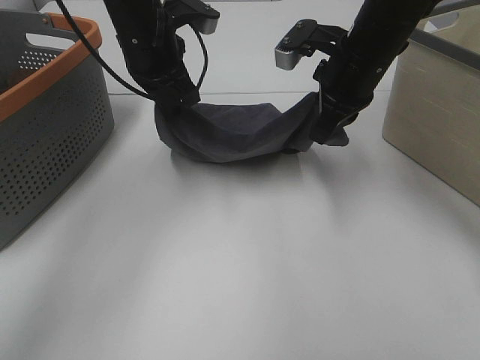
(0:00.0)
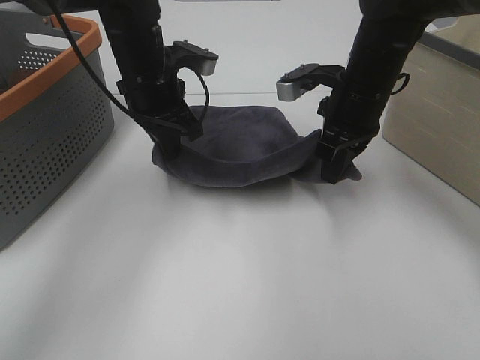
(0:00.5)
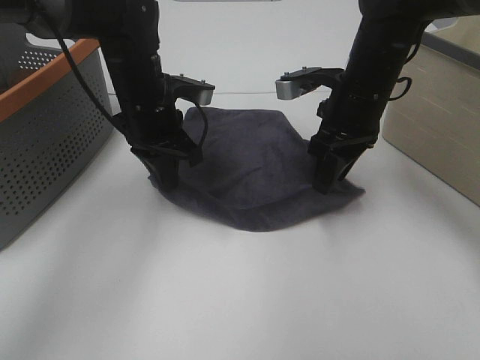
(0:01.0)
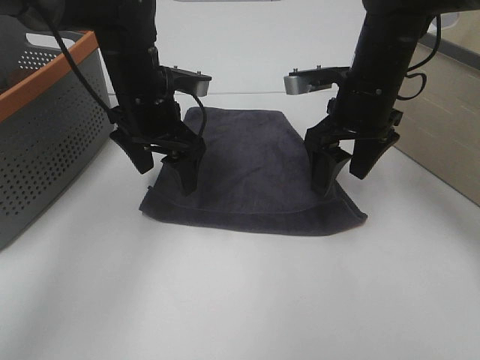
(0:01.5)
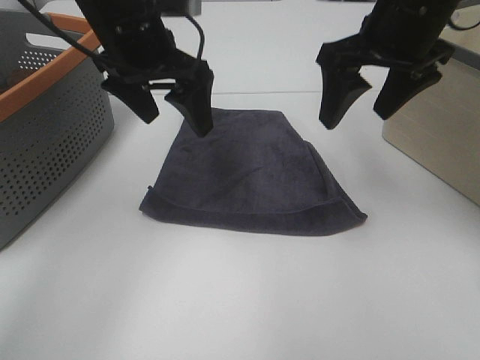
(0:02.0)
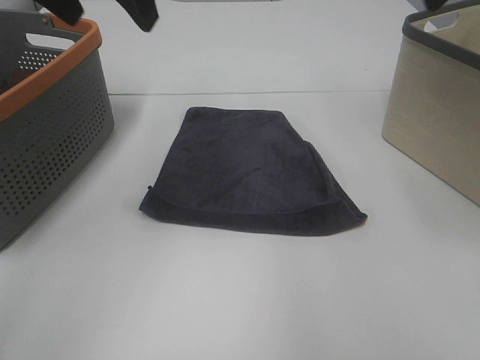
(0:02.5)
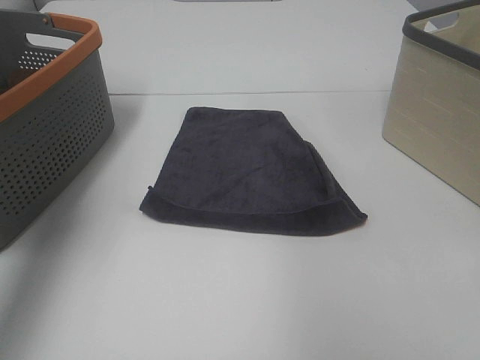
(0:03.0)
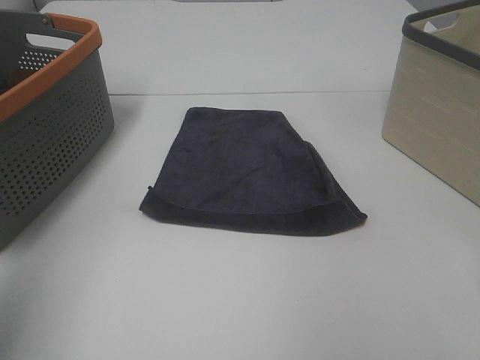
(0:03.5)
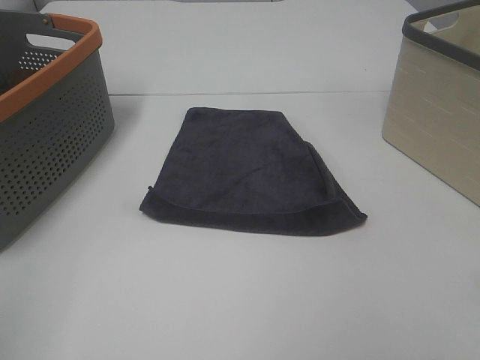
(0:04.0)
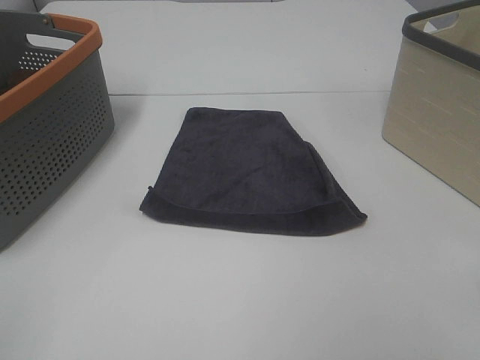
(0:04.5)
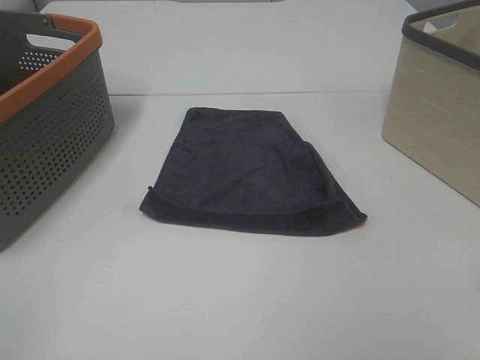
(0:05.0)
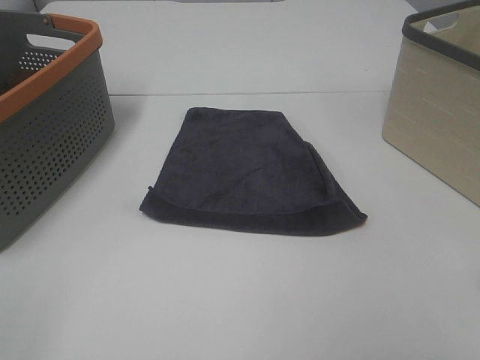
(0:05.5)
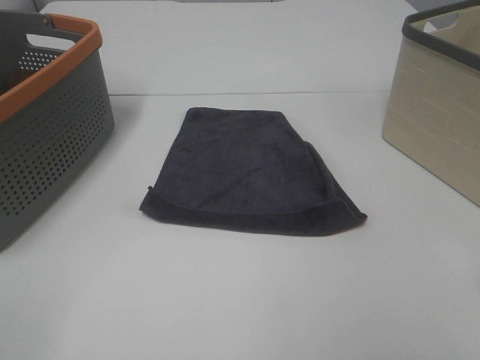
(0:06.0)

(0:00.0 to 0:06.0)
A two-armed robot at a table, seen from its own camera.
Task of the whole recording: Remove the towel and place it.
0:00.0 - 0:02.0: The left gripper heads backward, covering approximately 5 cm, and opens. The right gripper is displaced upward and backward by about 10 cm, and opens its fingers.
0:02.0 - 0:04.0: The left gripper moves backward and to the left, roughly 40 cm. Meanwhile the right gripper moves backward, some 35 cm.

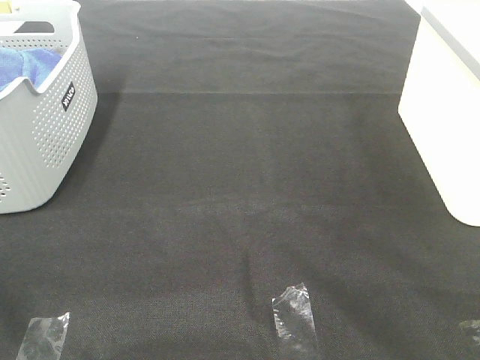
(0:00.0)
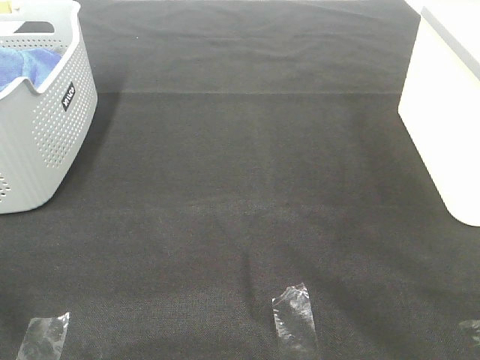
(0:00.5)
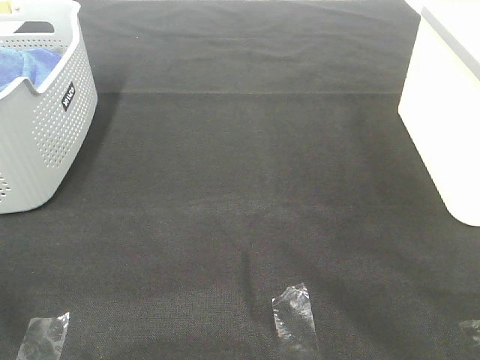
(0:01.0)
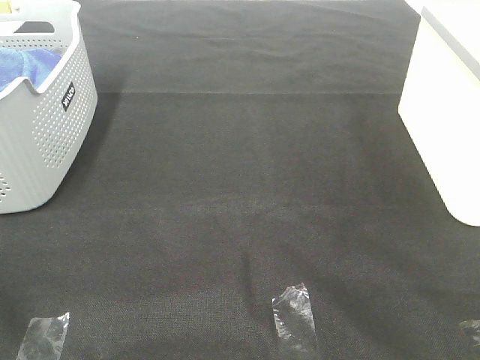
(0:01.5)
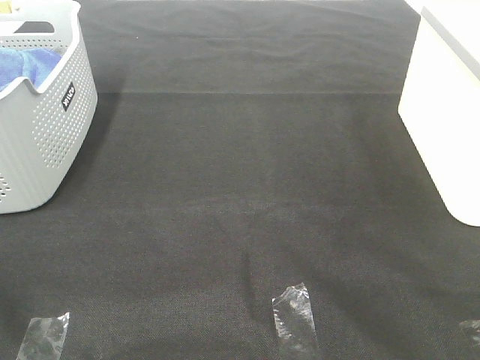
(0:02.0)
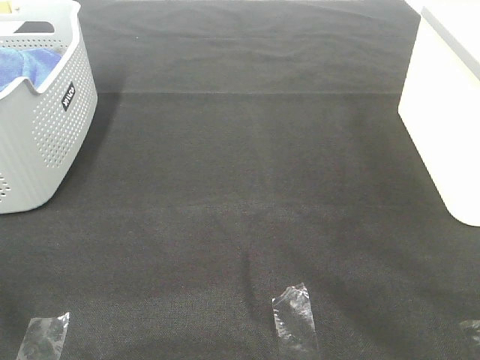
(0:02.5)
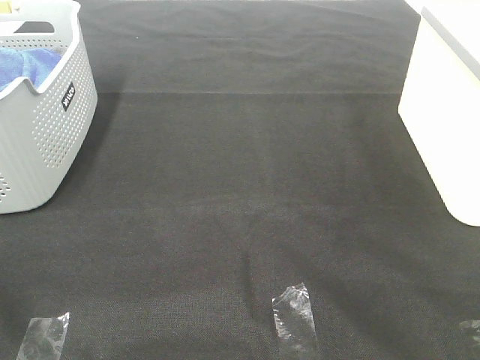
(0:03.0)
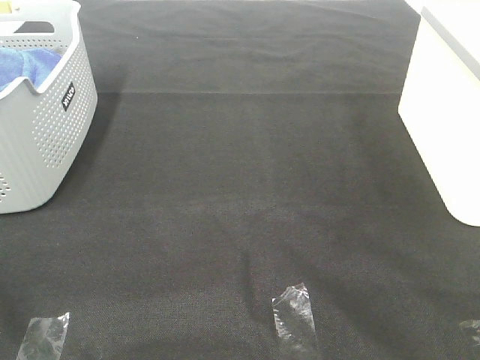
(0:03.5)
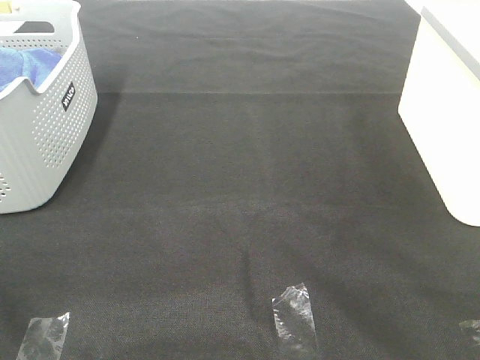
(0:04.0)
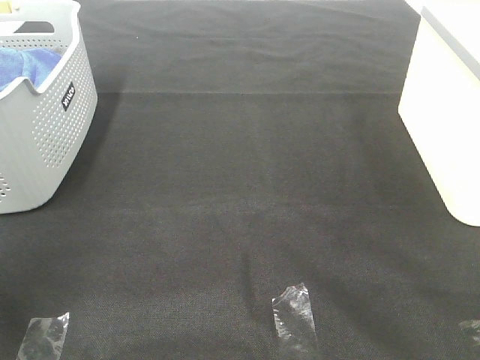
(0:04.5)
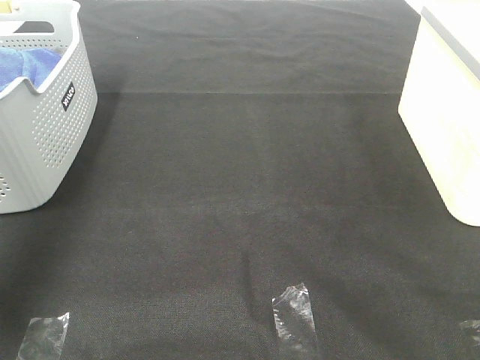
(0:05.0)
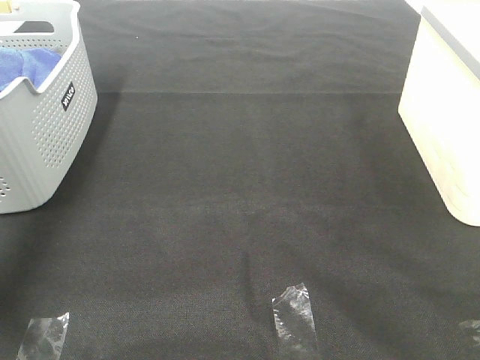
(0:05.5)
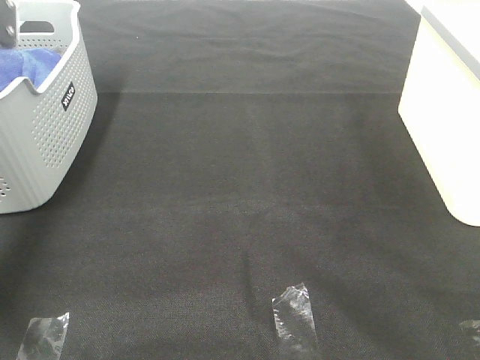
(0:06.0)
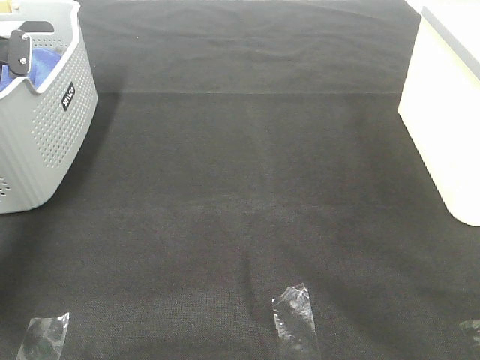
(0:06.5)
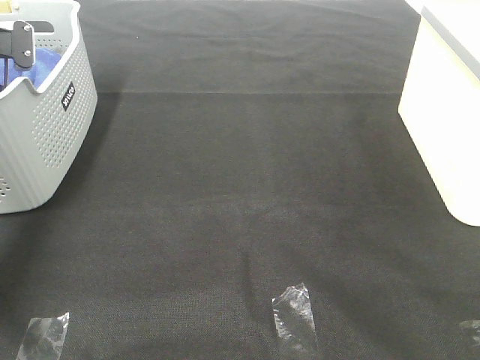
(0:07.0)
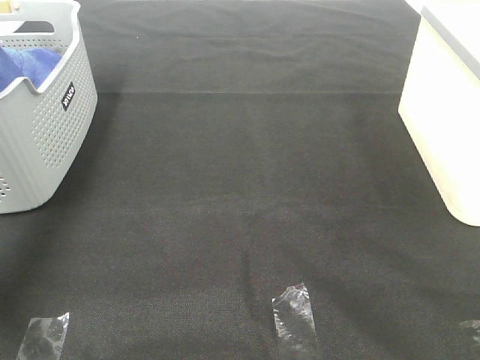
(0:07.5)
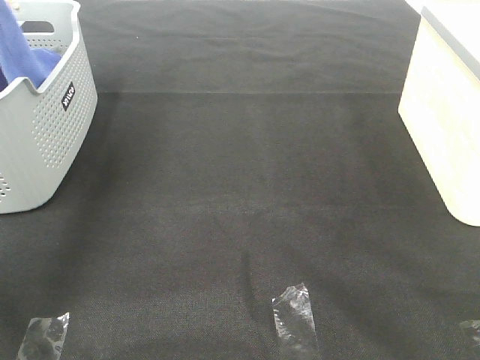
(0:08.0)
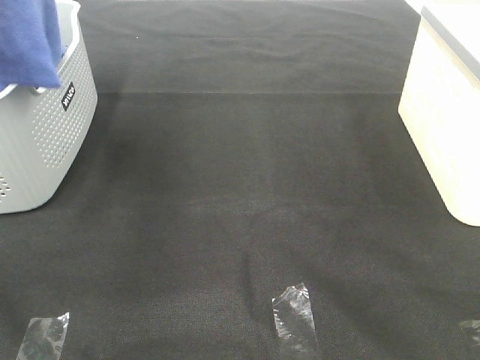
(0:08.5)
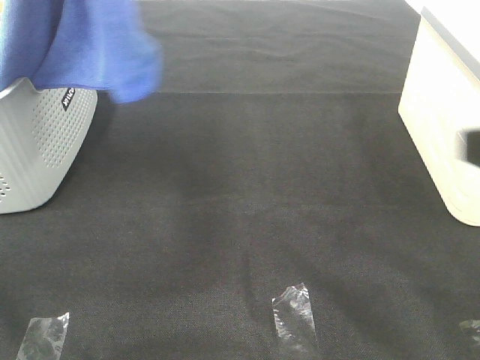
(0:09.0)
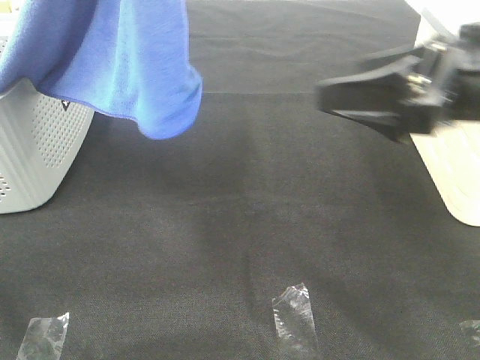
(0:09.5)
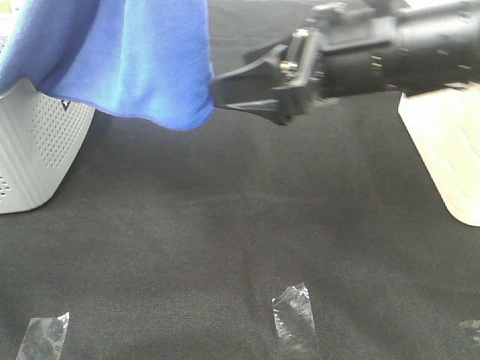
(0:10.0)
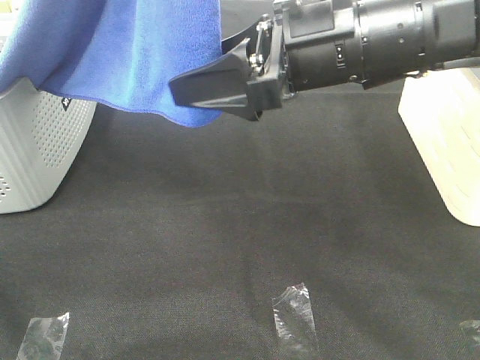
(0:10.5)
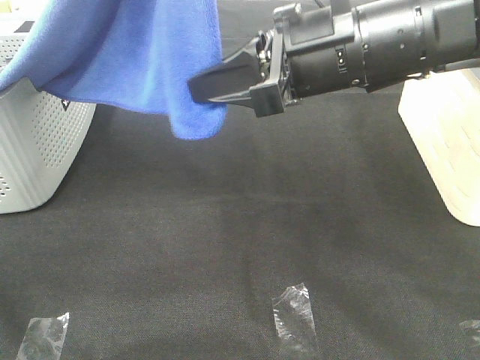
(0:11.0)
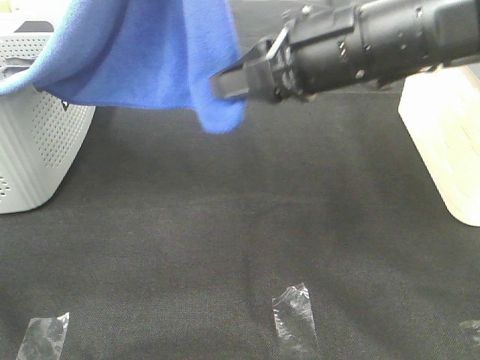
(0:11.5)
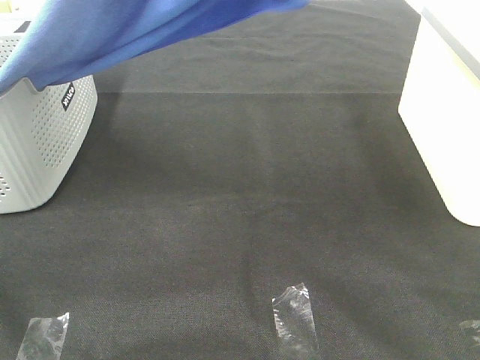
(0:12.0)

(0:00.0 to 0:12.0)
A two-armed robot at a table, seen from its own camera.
Task of the whole recording: Remove the towel and place it.
Step, 0:08.5 - 0:10.5: Right hand: grab a corner of the blue towel and straighten it.
0:00.0 - 0:02.0: Neither gripper changes place.
0:04.0 - 0:06.0: The left gripper travels forward by approximately 50 cm.
0:06.0 - 0:08.0: The left gripper heads upward and to the right, covering roughly 20 cm, and closes up.
0:08.0 - 0:10.0: The right gripper travels forward and to the left by roughly 35 cm, while the left gripper heads to the right, backward and upward, covering about 25 cm.
0:10.0 - 0:12.0: The right gripper is displaced upward by approximately 10 cm, and closes.

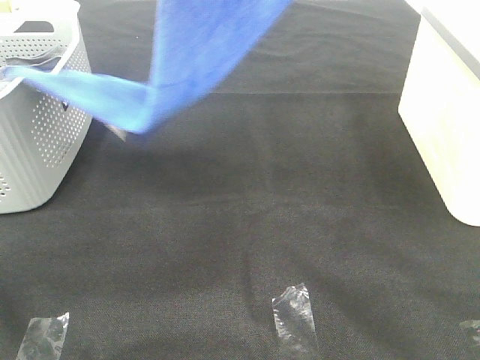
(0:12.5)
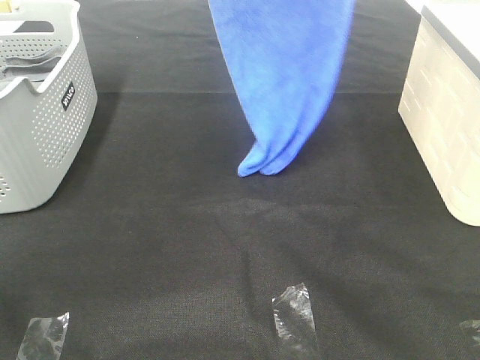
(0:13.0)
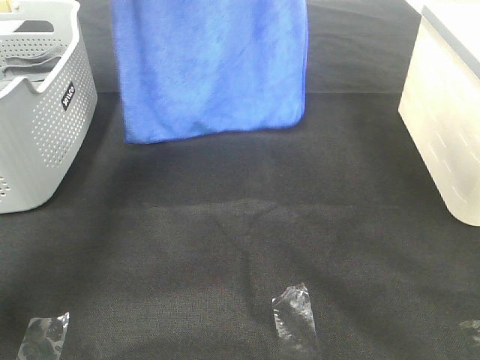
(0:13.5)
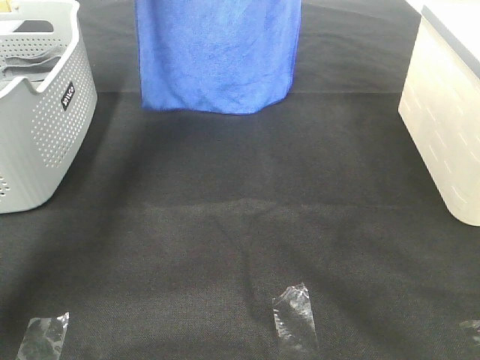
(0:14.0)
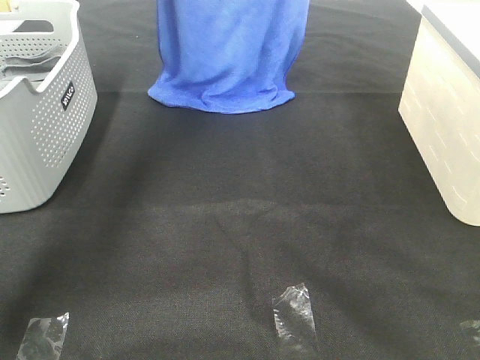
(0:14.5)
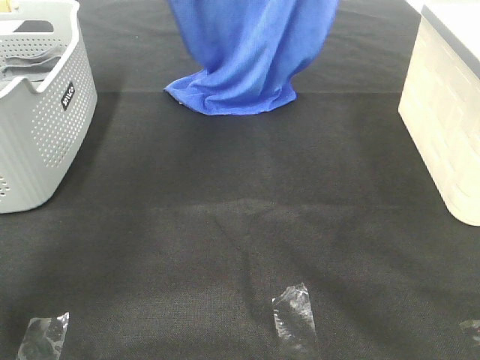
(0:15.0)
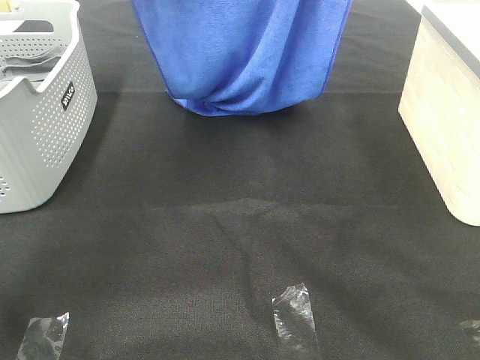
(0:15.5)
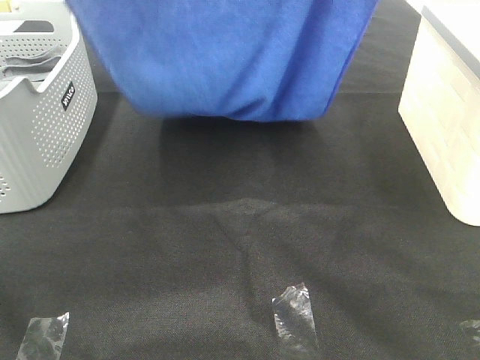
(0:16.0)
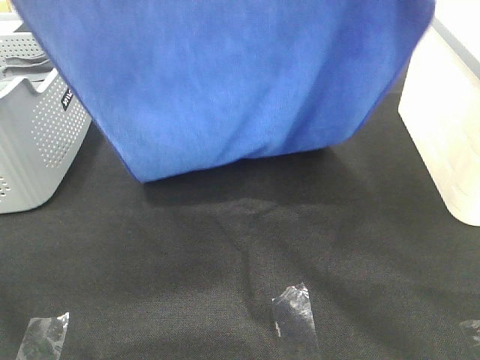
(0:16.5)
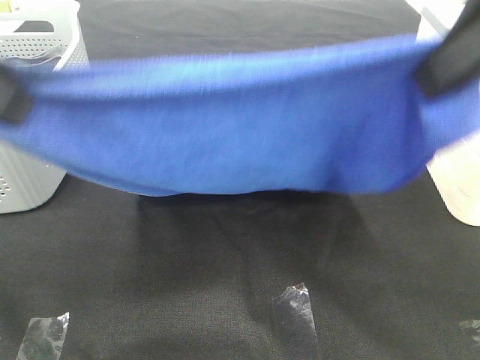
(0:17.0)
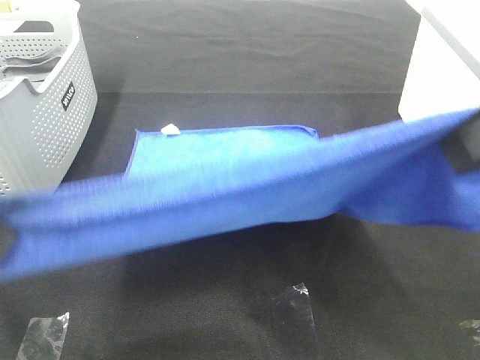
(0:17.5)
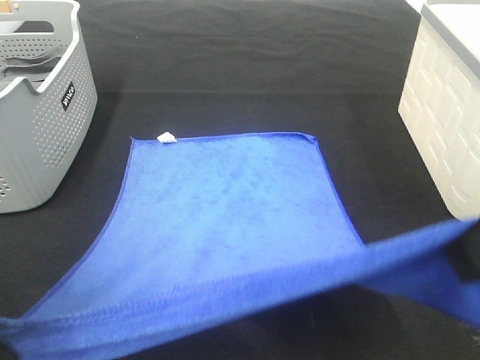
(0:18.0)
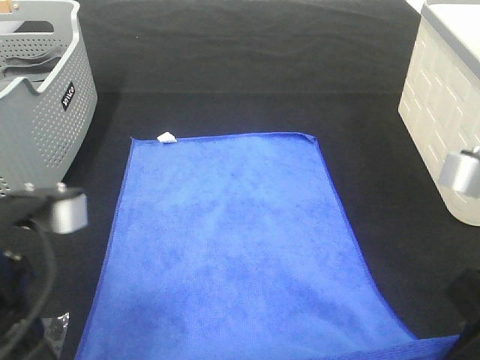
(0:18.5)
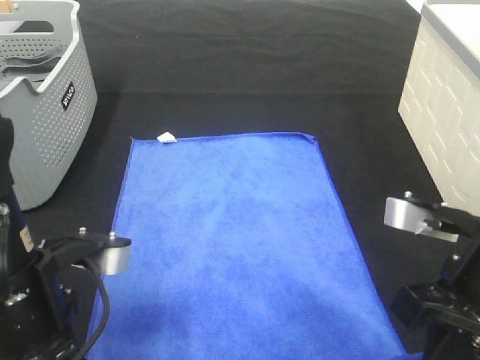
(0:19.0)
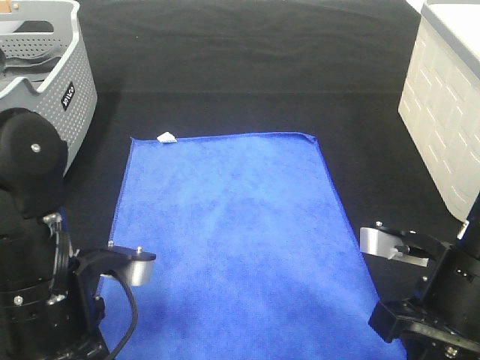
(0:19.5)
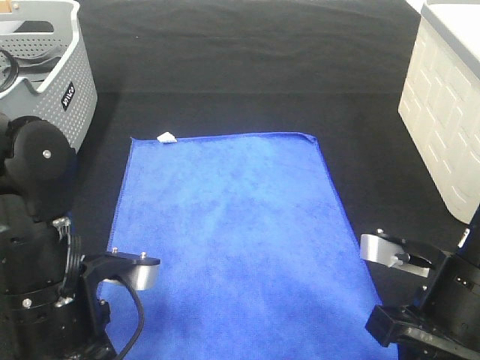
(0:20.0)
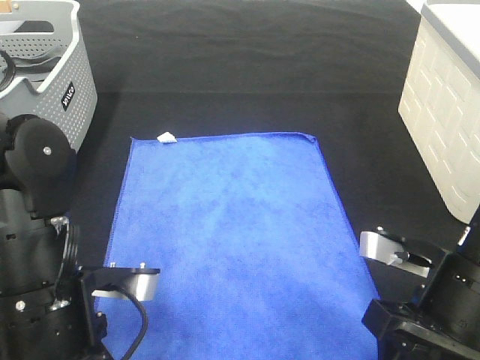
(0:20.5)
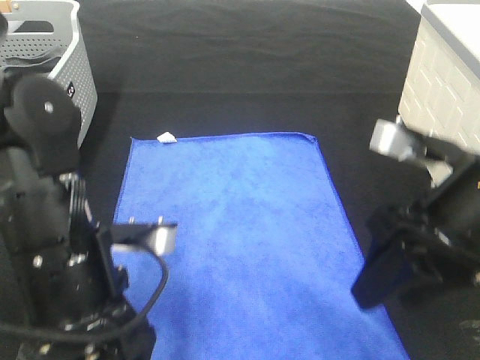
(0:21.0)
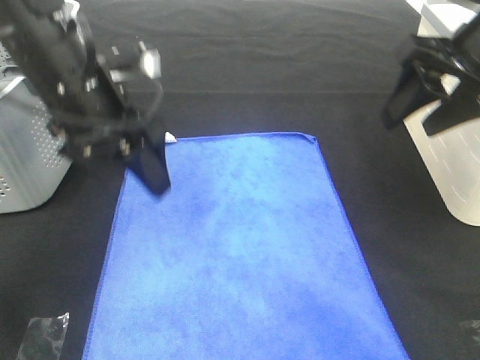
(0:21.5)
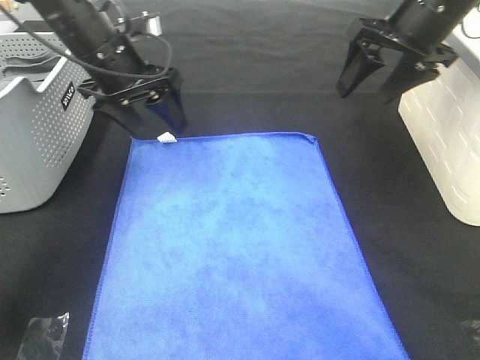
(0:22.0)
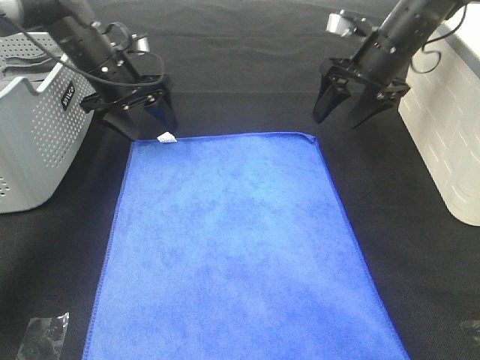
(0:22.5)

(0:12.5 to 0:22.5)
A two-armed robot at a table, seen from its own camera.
Task of the whole recording: Remove the towel and place it.
Step, 0:12.5 - 0:16.0: Left hand: spread the blue towel flat on the table.
Step, 0:12.5 - 0:16.0: Right hand: spread the blue towel flat on the table.
0:12.5 - 0:14.5: The right gripper shifts roughly 20 cm forward, while the left gripper moves forward and downward, approximately 25 cm.
0:14.5 - 0:16.5: The grippers both shift backward by about 25 cm.
0:16.5 - 0:18.5: The grippers both shift downward and backward by about 25 cm.
0:18.5 - 0:20.5: The two grippers go roughly 10 cm downward. The right gripper opens its fingers, while the left gripper opens.
0:20.5 - 0:22.5: The two grippers go roughly 35 cm forward.
